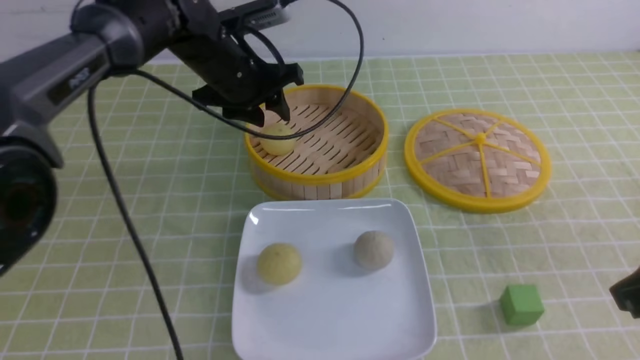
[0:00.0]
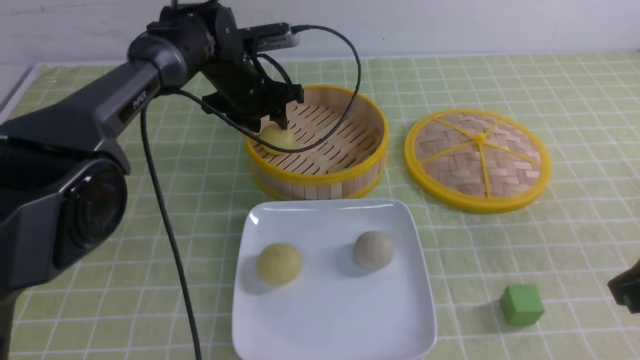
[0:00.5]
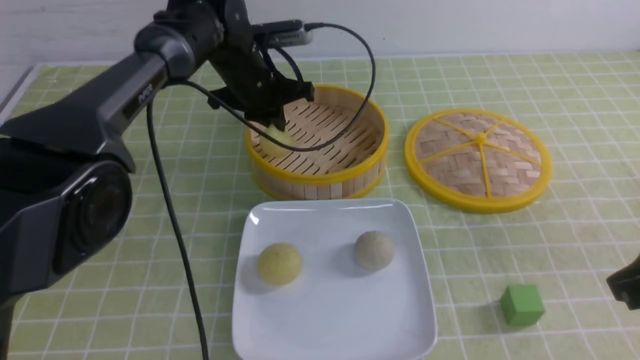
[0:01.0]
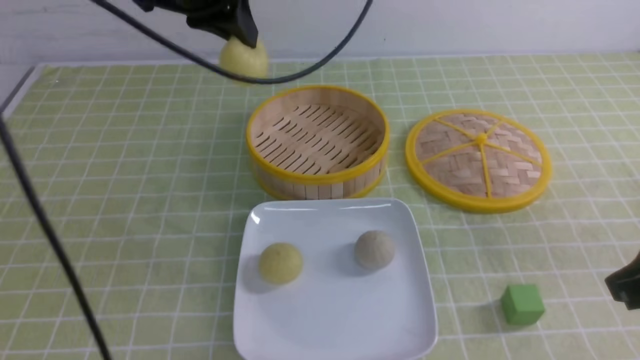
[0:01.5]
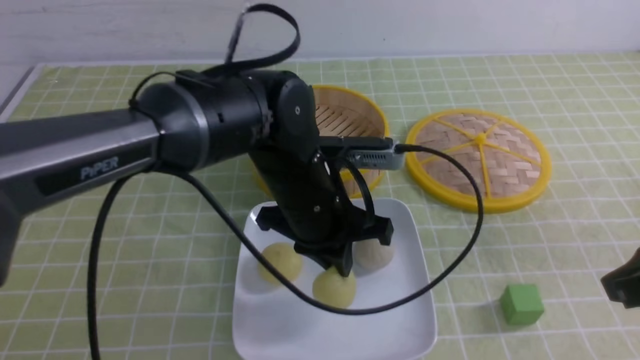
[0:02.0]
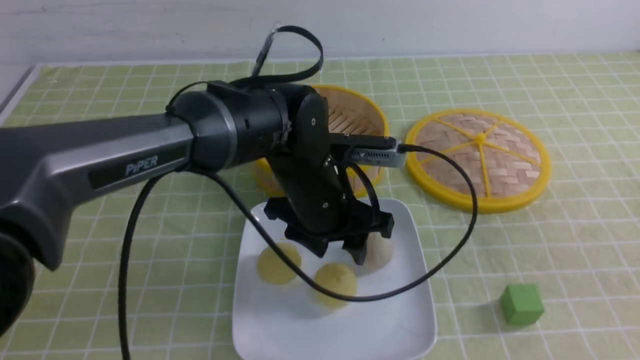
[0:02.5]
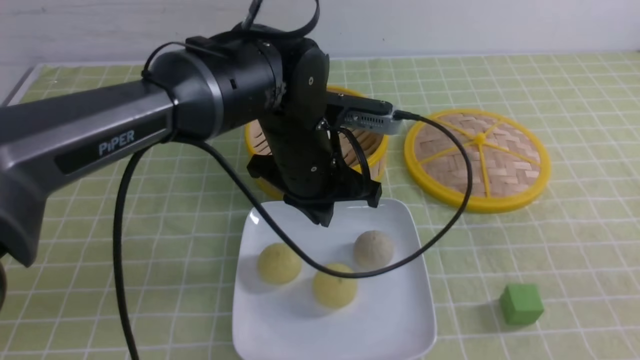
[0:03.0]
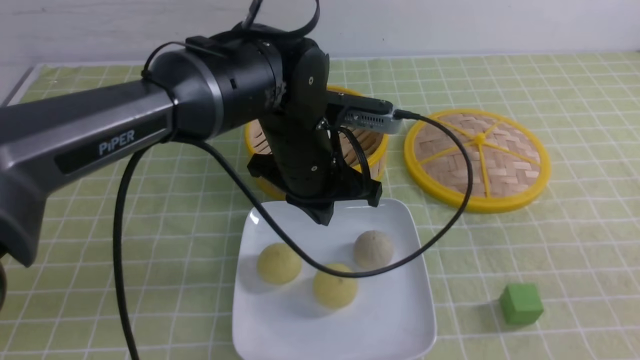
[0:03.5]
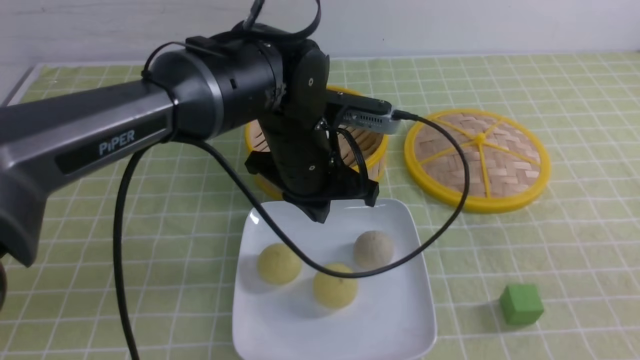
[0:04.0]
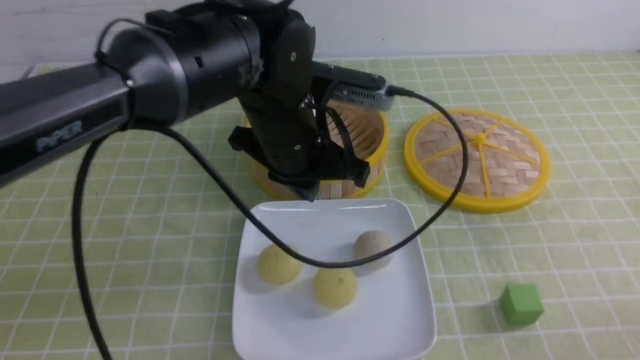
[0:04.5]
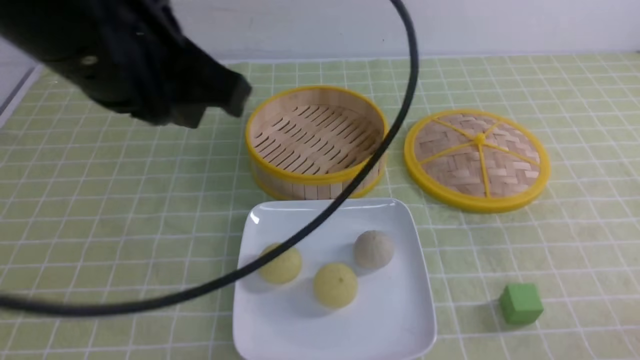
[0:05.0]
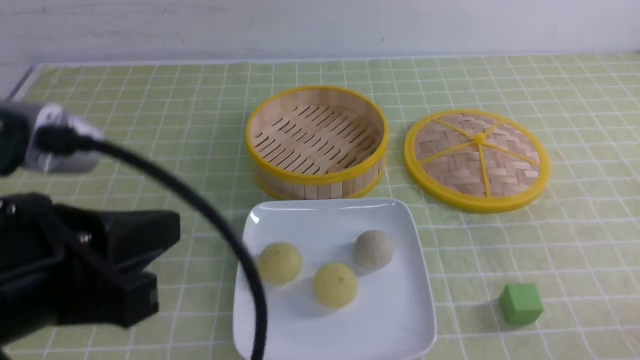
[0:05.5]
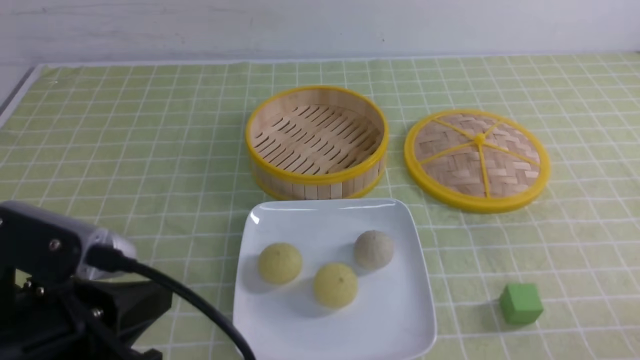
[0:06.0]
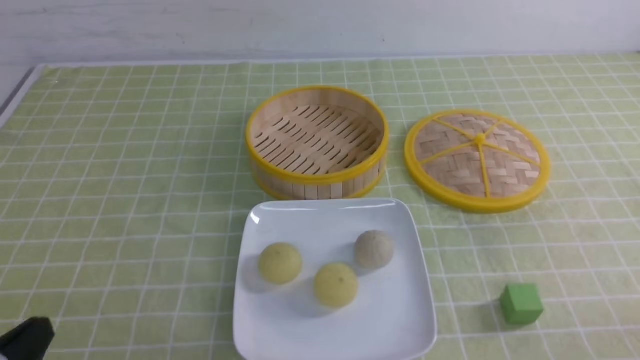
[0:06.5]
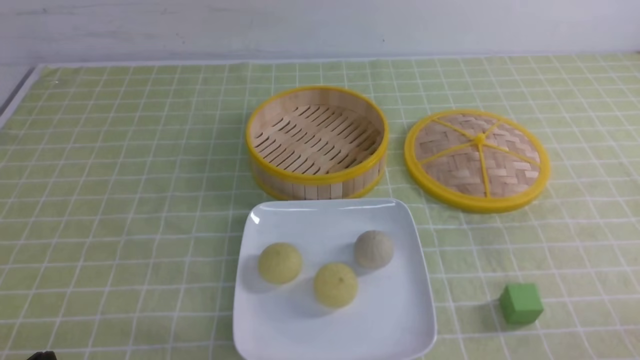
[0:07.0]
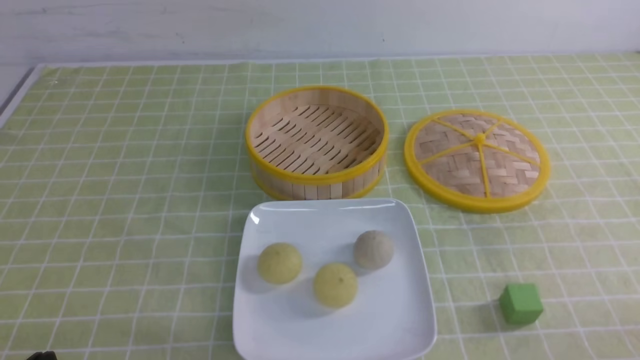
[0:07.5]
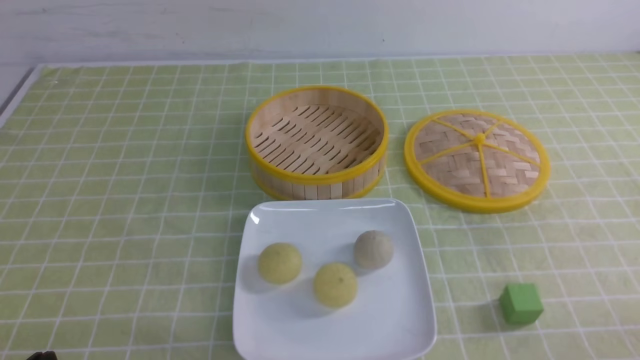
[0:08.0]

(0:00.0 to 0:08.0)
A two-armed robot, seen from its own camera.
Step, 0:01.0 - 0:02.0: use the left arm to put the steamed stuffed bun into the plate.
0:00.0 - 0:02.0: The left gripper is displaced backward and to the right by roughly 20 cm, and closes up.
0:02.0 - 0:04.0: The left gripper opens and closes again, while the right gripper travels backward by some 10 cm.
0:04.0 - 0:06.0: The right gripper goes approximately 10 cm downward, while the left gripper moves backward and to the left, roughly 30 cm.
0:06.0 - 0:08.0: The left gripper moves downward and to the left, about 15 cm.

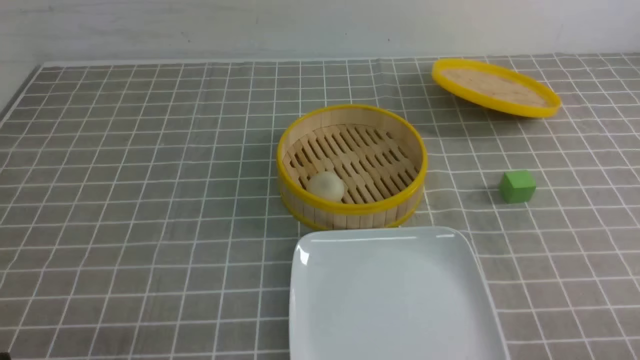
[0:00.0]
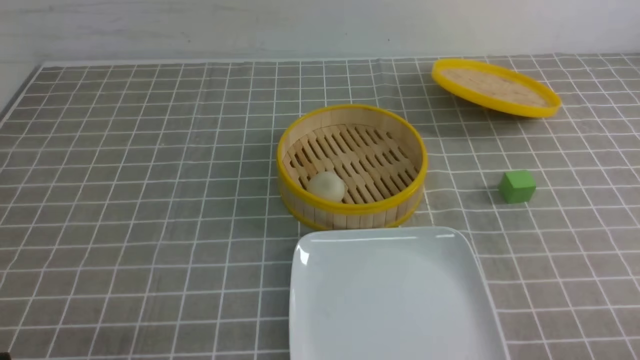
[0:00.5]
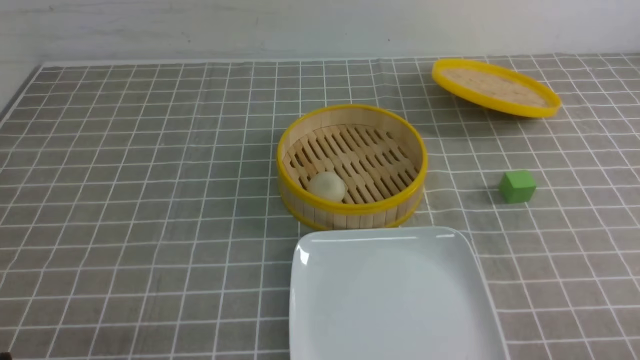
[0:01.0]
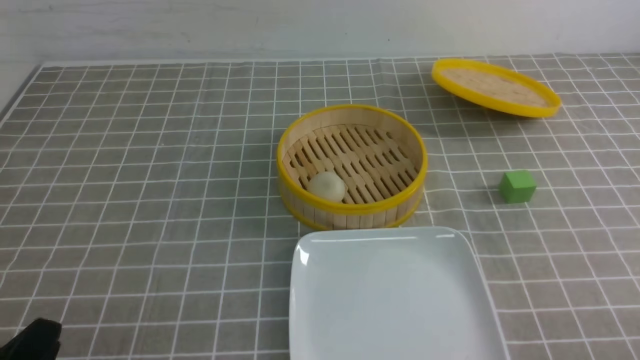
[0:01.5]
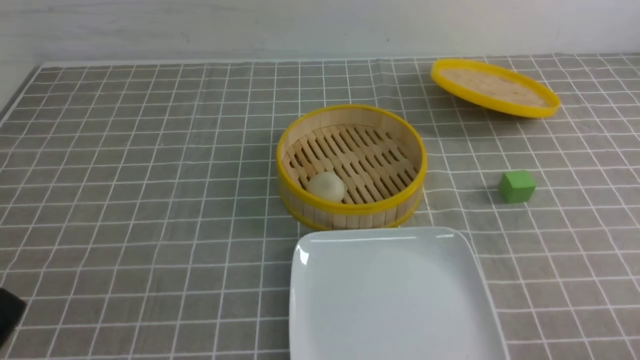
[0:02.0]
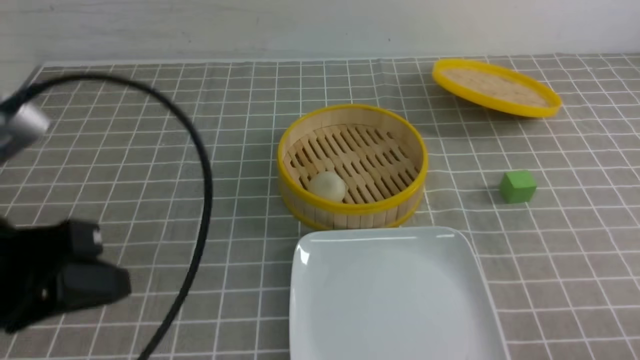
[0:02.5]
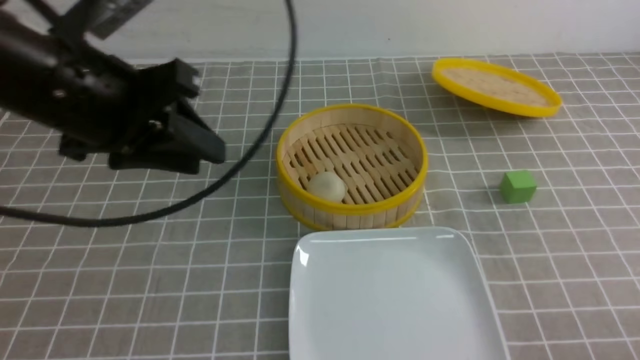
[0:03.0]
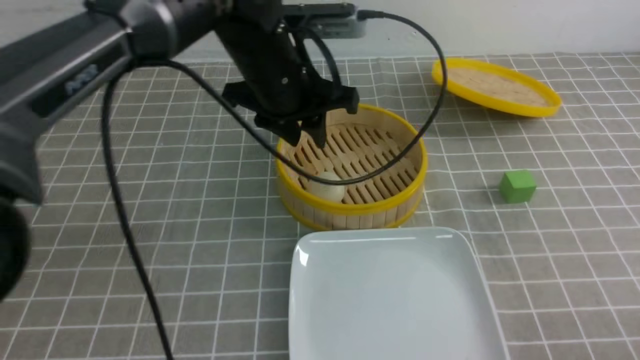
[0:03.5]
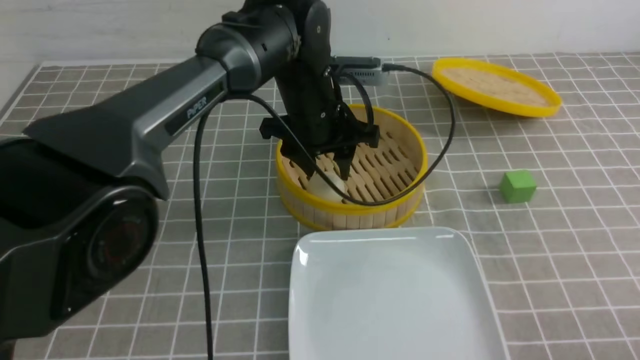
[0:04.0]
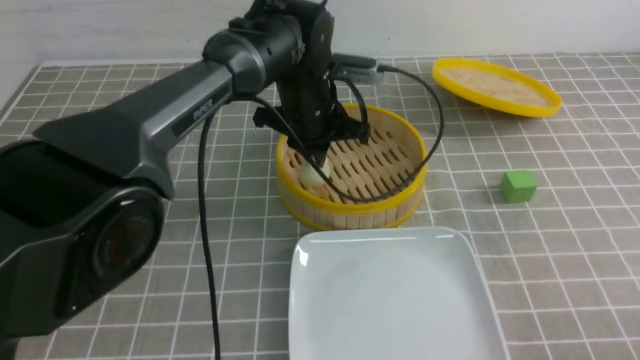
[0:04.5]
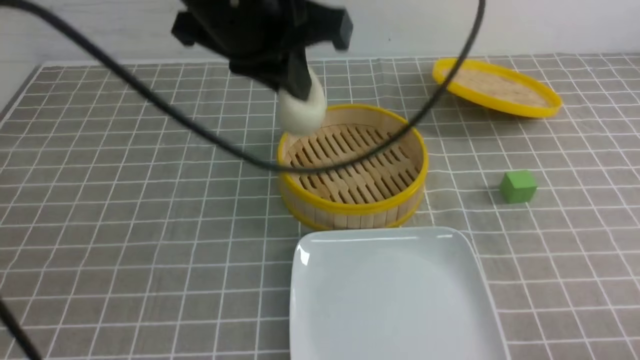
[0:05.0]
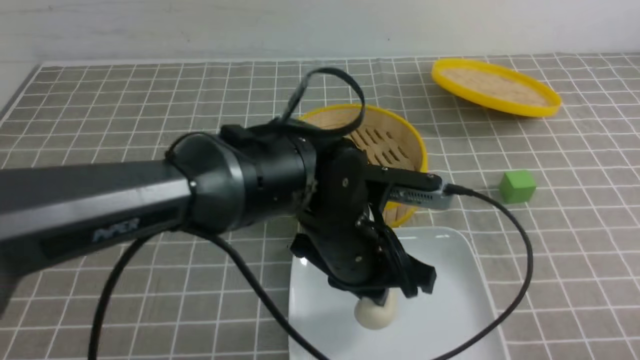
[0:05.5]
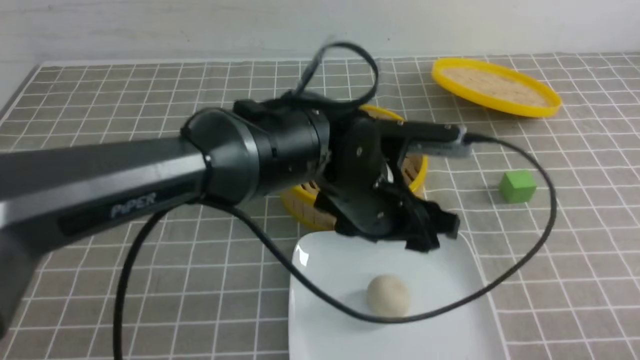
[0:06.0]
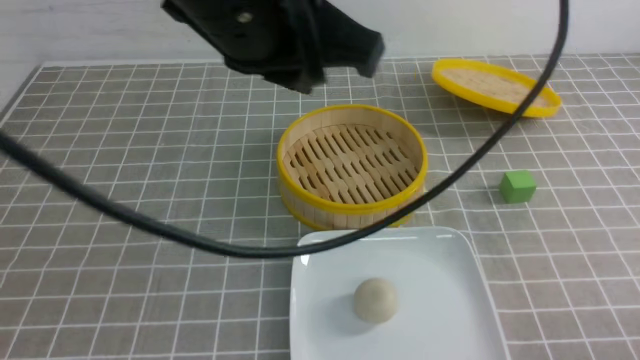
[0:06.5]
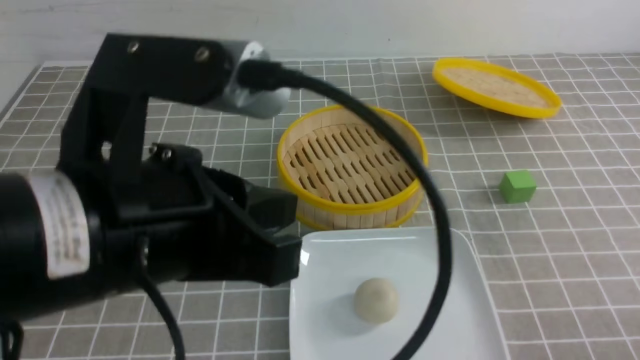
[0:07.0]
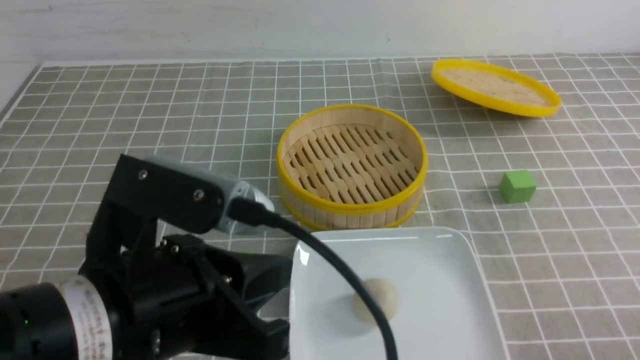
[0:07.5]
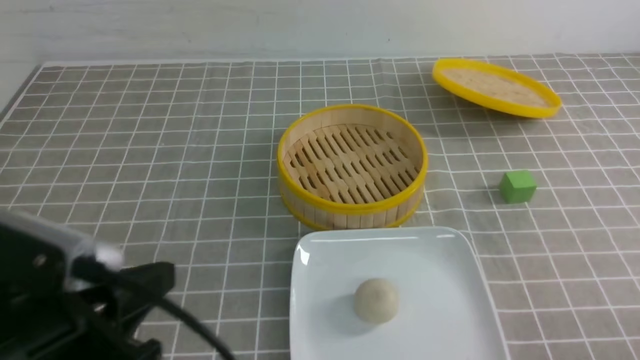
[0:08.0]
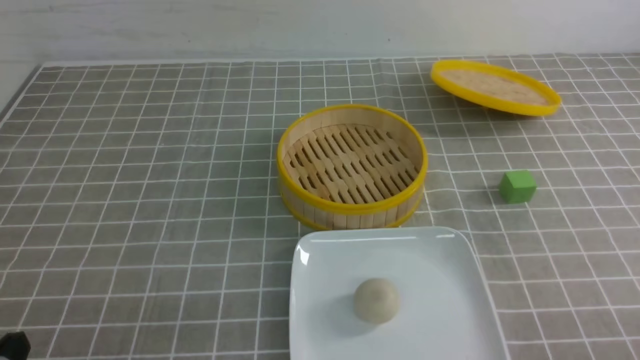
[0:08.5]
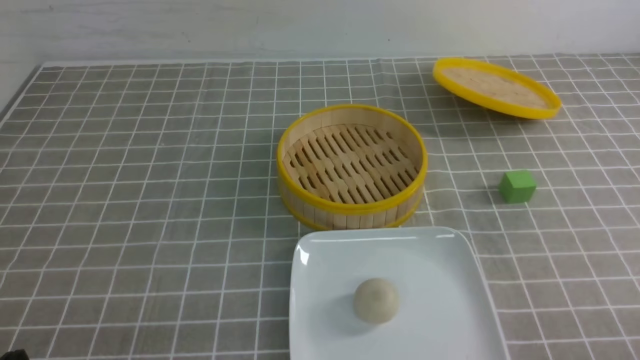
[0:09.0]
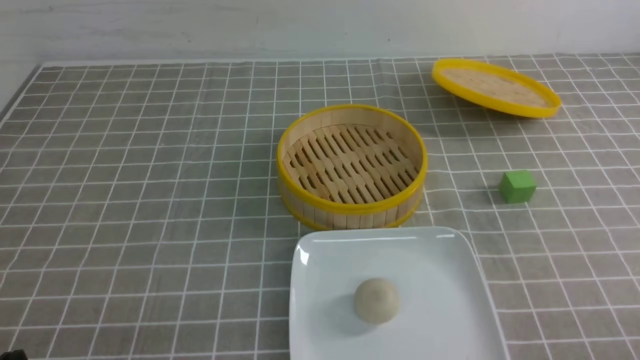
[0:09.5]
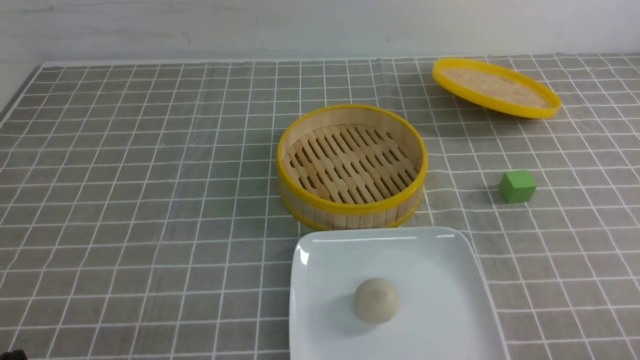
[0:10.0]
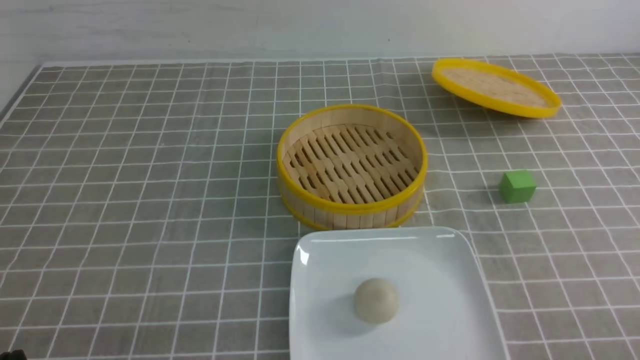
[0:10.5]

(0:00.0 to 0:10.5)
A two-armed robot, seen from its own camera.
Step, 0:00.0 - 0:04.0: use the left arm to grab the steamed stuffed bun that is closest to it.
Step, 0:05.0 - 0:05.5: use the left arm to put the steamed stuffed bun into the plate.
0:02.0 - 0:04.0: The left gripper goes approximately 40 cm forward and to the right, and opens.
0:04.0 - 0:06.5: The left gripper swings up and down, approximately 20 cm each way, with 2 reversals, and closes its fingers.
0:06.5 - 0:08.5: The left gripper shifts some 35 cm downward, to the left and backward.
